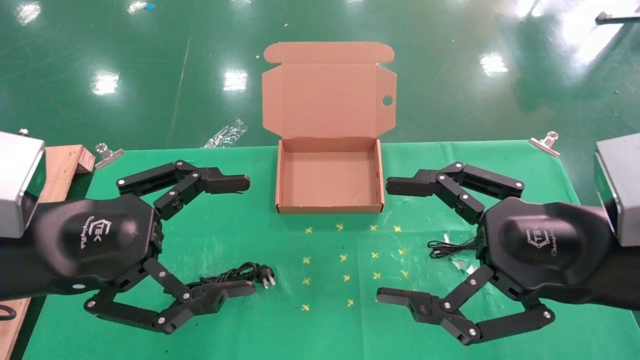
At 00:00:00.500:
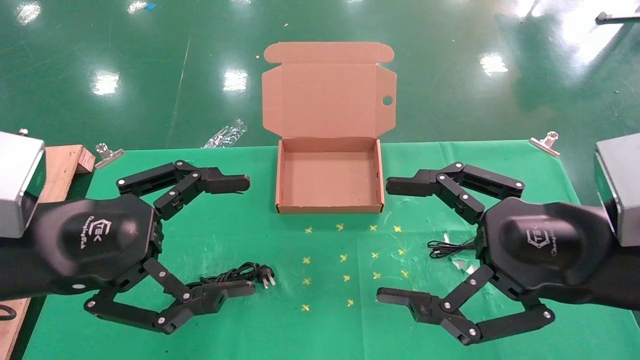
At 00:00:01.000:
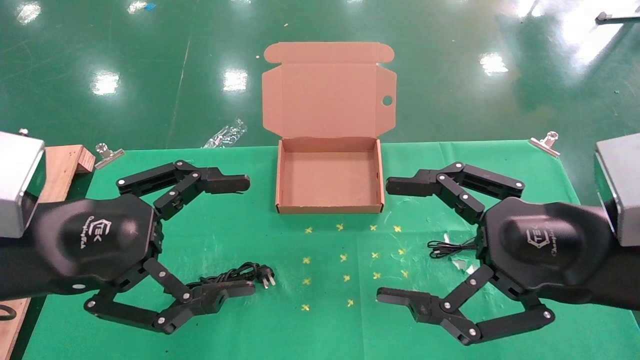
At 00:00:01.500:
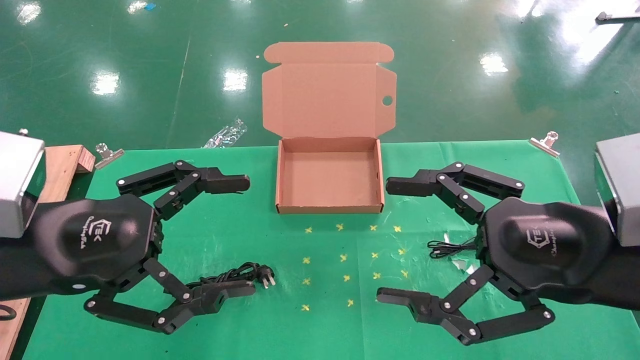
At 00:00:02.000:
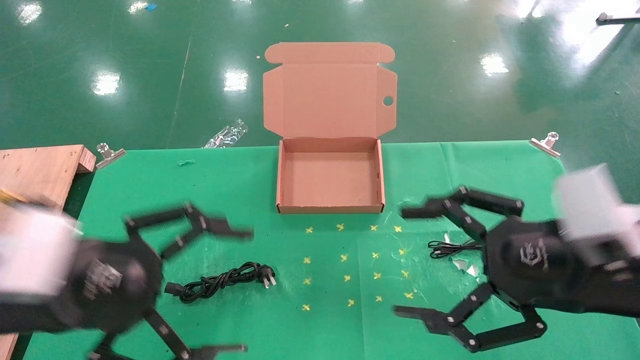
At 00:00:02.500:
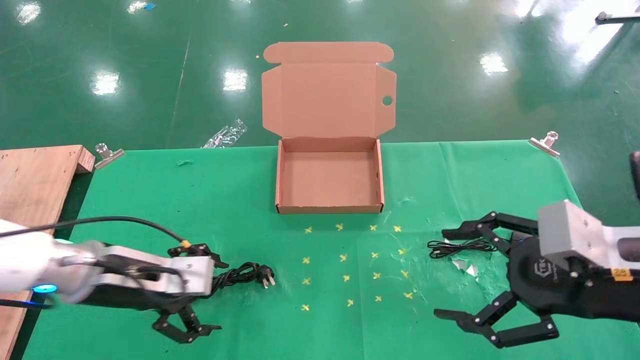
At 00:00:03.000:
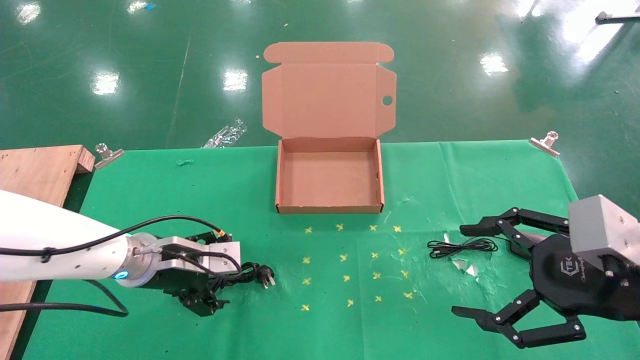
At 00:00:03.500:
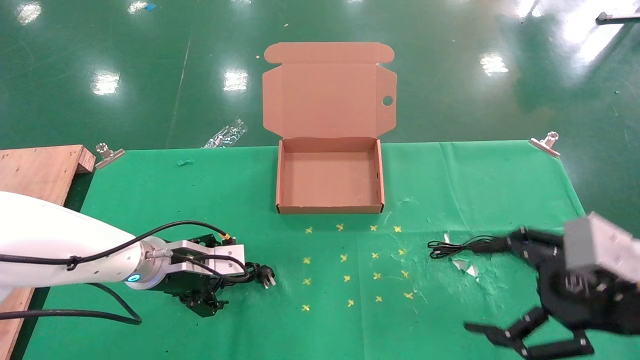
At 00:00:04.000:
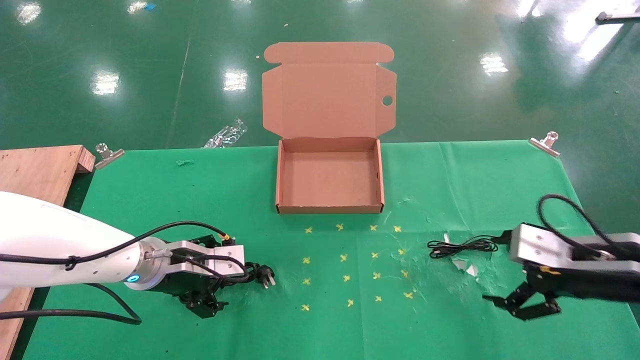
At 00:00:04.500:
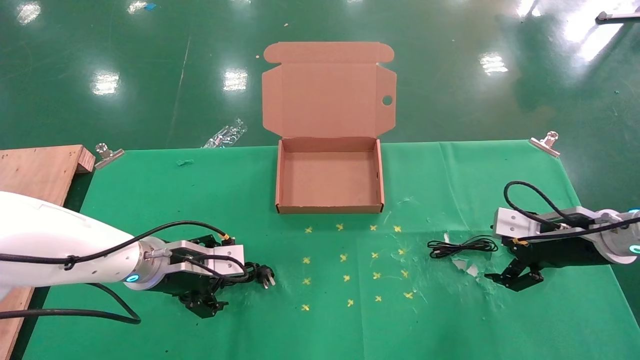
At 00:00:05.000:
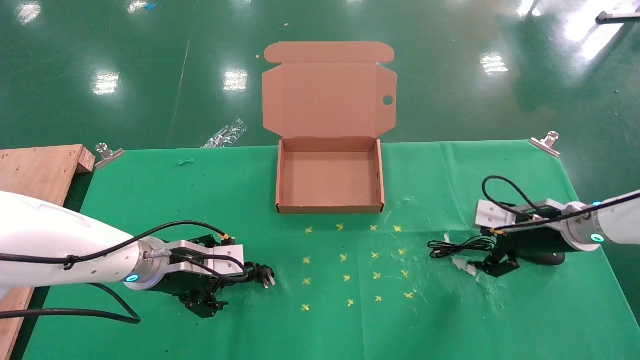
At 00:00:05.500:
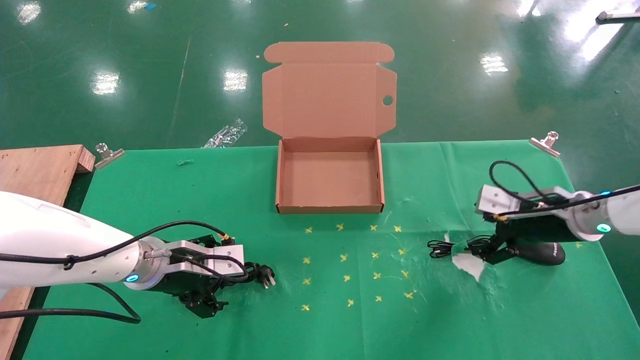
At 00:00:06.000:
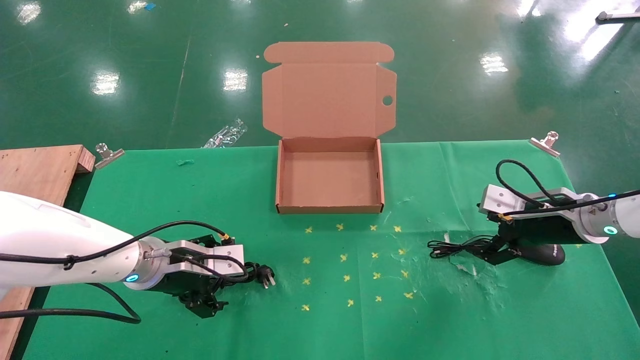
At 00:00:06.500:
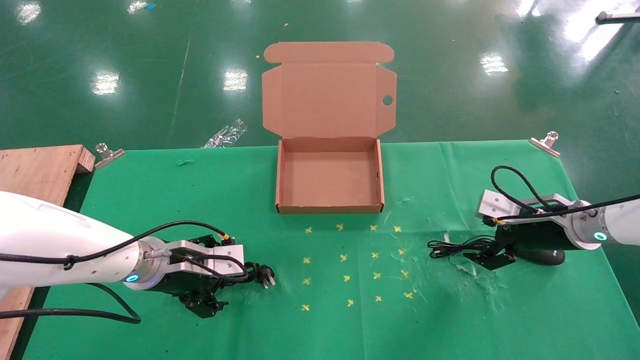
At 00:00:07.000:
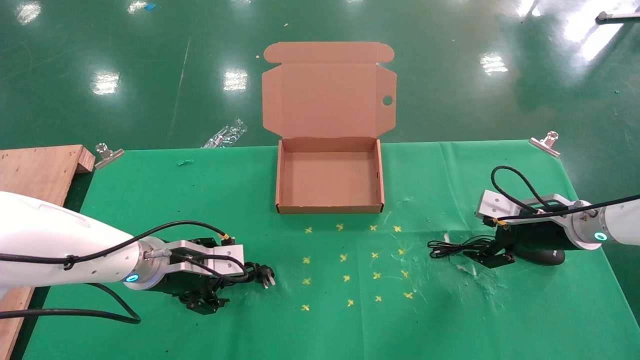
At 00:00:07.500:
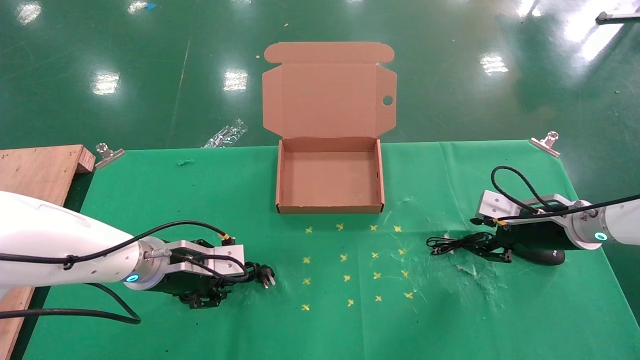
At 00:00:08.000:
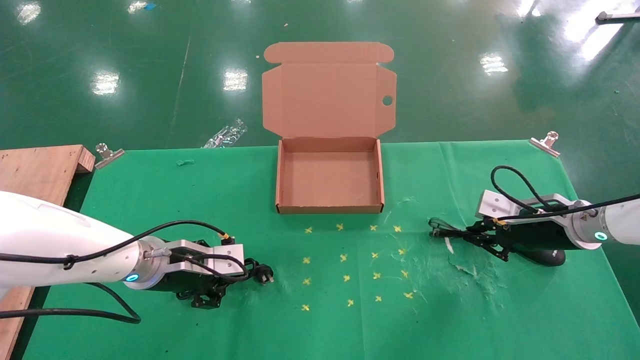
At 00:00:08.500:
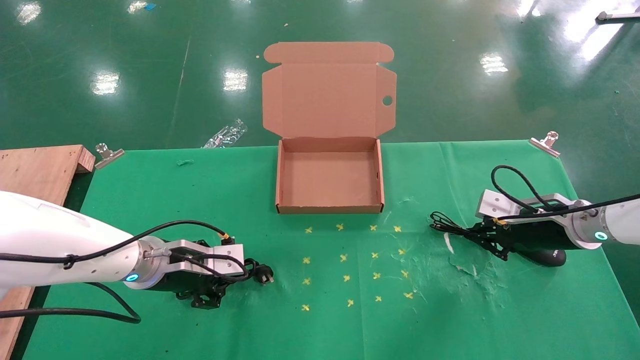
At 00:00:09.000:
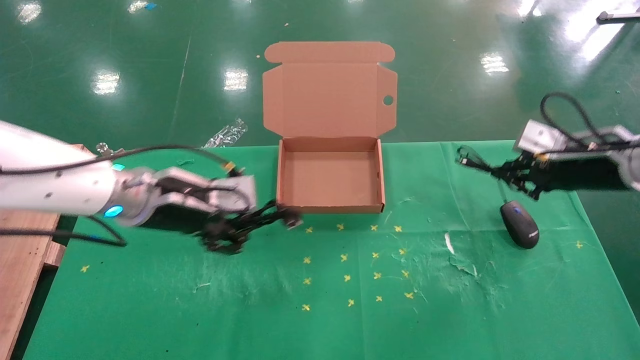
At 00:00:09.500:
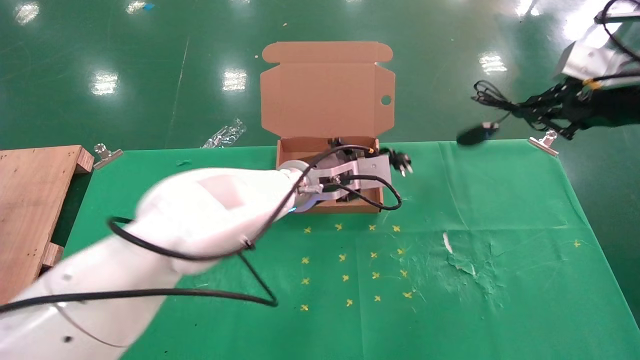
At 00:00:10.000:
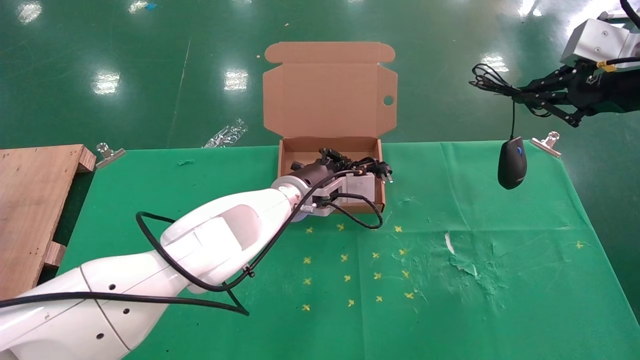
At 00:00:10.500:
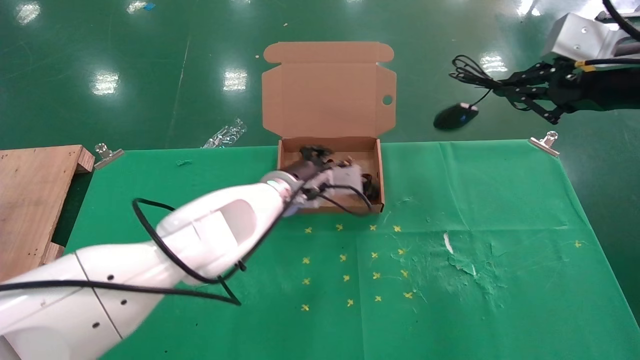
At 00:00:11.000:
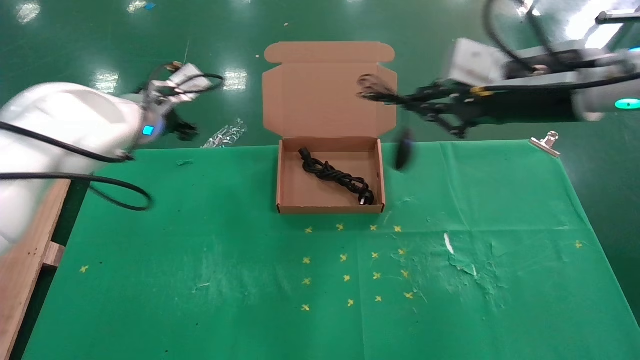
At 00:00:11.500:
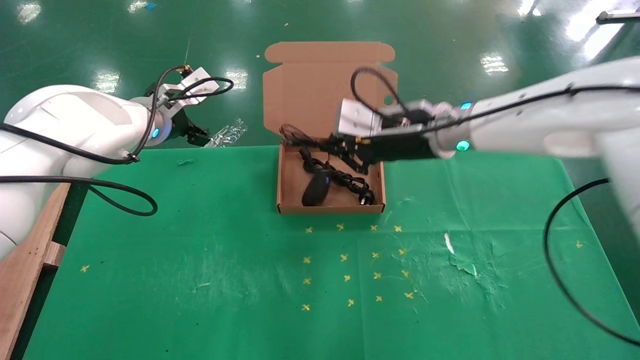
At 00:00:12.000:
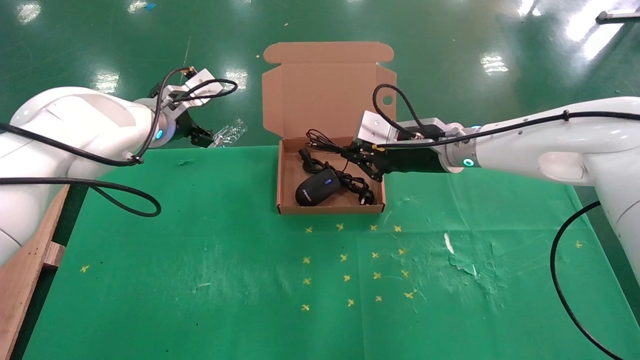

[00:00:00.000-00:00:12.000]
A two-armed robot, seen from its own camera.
Task of the whole recording: grasp data cable left put into box grasp mouse right put into box.
Step, 00:00:02.500 to 00:00:08.000: Simultaneously pick up the mouse and power cord from the accessory packaging area.
00:00:02.000 to 00:00:04.000: The left gripper moves forward and downward, some 20 cm; the right gripper is displaced forward, to the right and downward by roughly 15 cm.
00:00:04.000 to 00:00:06.000: The right gripper shifts roughly 10 cm forward.
00:00:06.000 to 00:00:08.000: The right gripper closes its fingers.
00:00:08.000 to 00:00:10.000: The right gripper goes roughly 25 cm upward, while the left gripper travels to the right and forward by about 20 cm.
00:00:10.000 to 00:00:12.000: The left gripper goes some 25 cm to the left and upward, and opens up. Meanwhile the right gripper shifts roughly 30 cm to the left, downward and forward.

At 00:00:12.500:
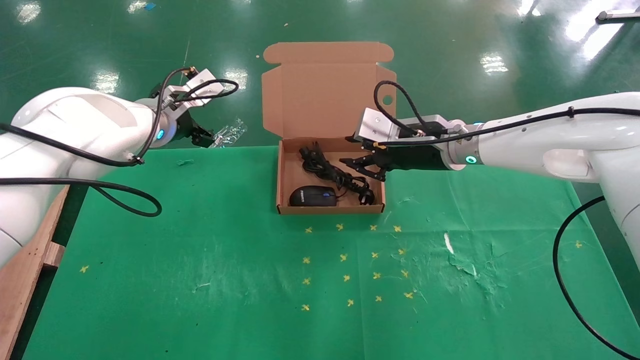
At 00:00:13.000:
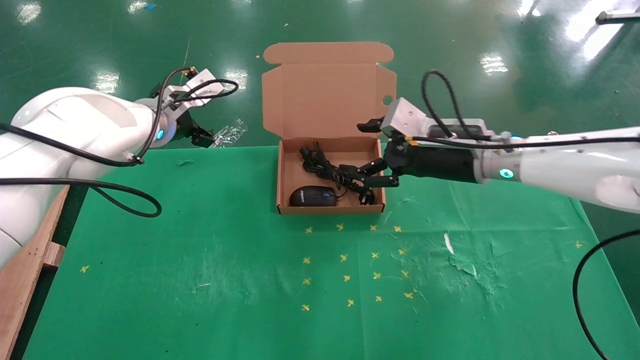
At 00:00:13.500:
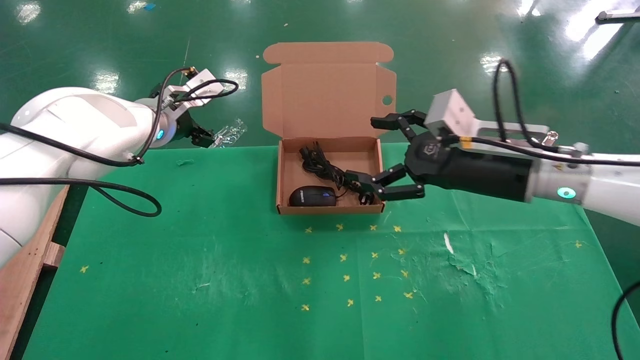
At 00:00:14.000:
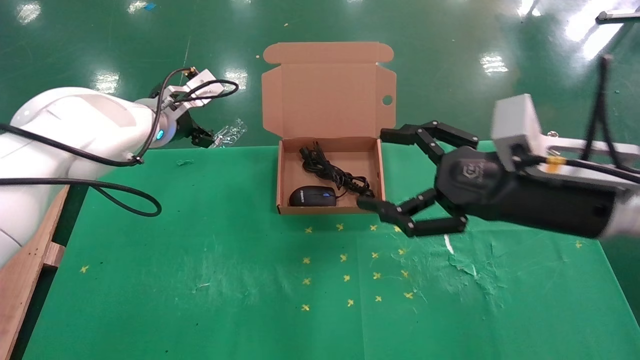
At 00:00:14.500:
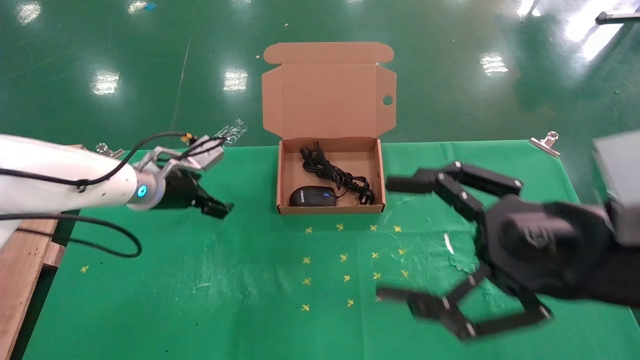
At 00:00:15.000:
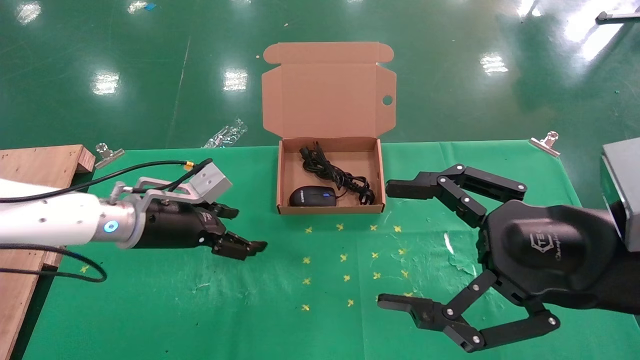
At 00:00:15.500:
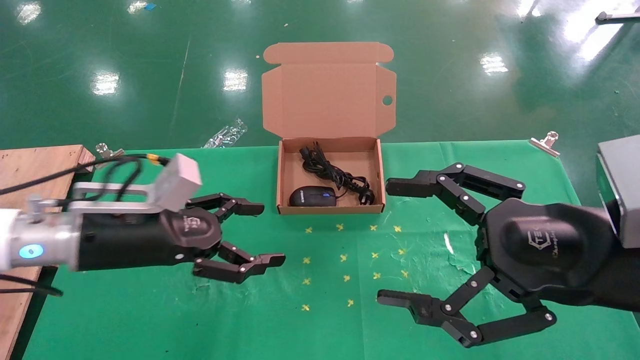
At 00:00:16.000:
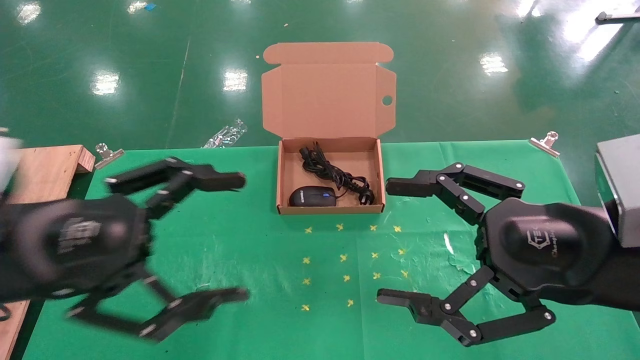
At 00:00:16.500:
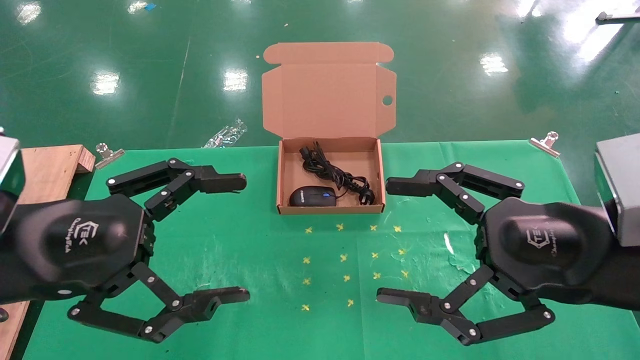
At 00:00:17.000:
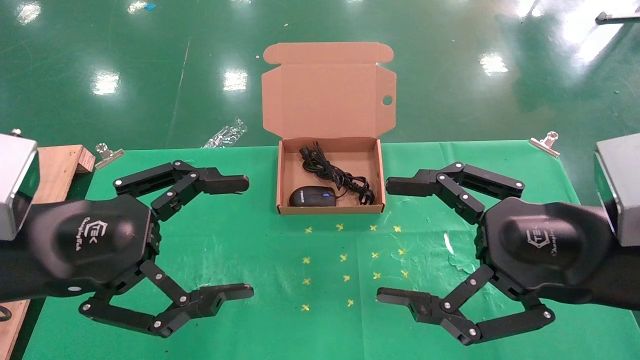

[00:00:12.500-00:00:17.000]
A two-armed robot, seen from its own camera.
Task of the whole recording: grasp data cable left put into box grasp mouse right put into box.
00:00:12.500 to 00:00:14.500: The left gripper is displaced downward by roughly 10 cm. Meanwhile the right gripper moves backward, approximately 25 cm, and opens its fingers.
00:00:14.500 to 00:00:17.000: The left gripper shifts approximately 25 cm backward.
